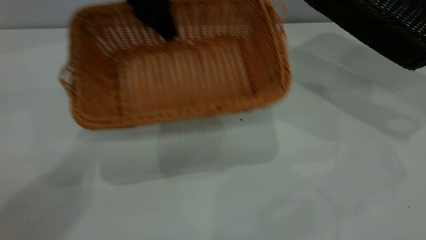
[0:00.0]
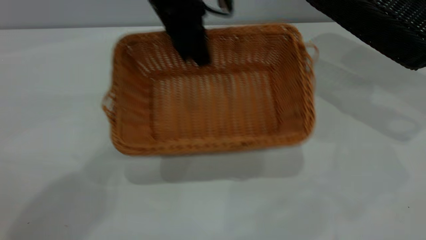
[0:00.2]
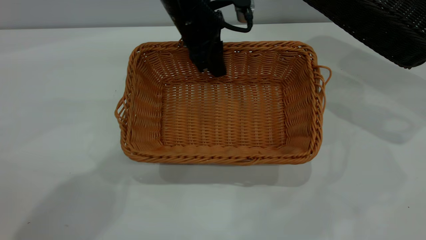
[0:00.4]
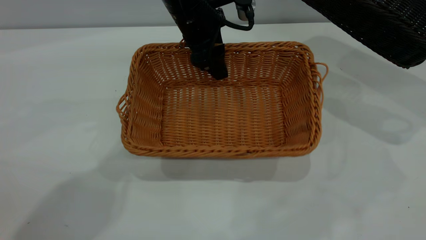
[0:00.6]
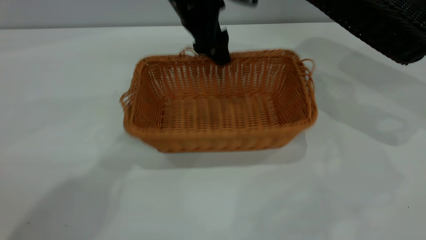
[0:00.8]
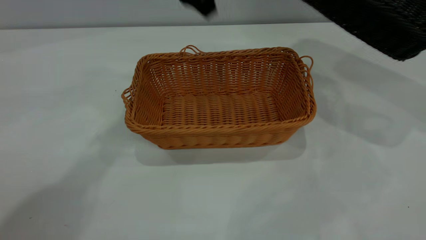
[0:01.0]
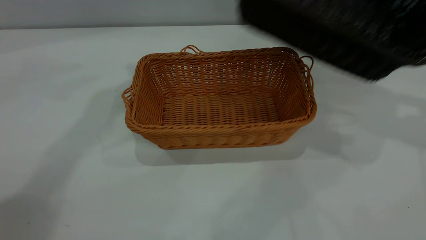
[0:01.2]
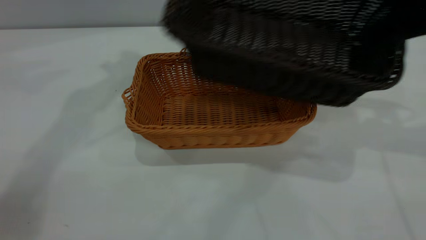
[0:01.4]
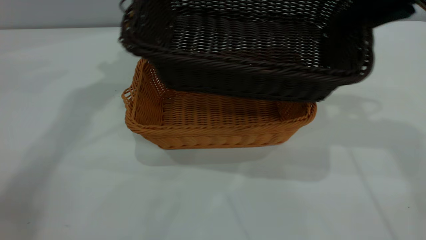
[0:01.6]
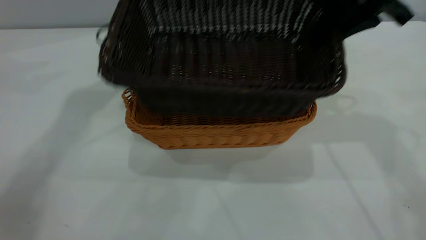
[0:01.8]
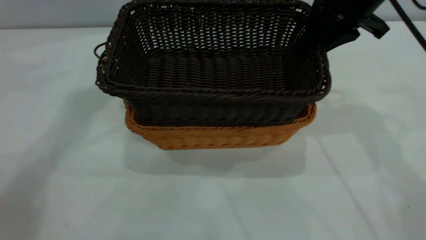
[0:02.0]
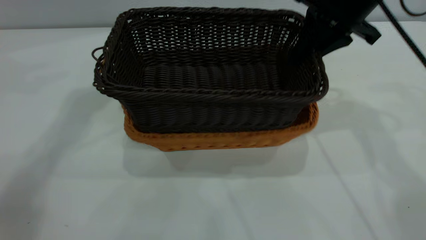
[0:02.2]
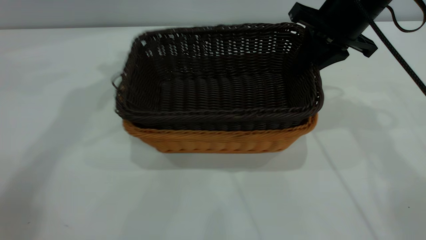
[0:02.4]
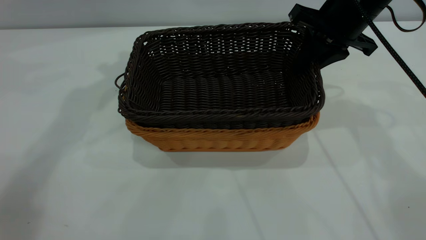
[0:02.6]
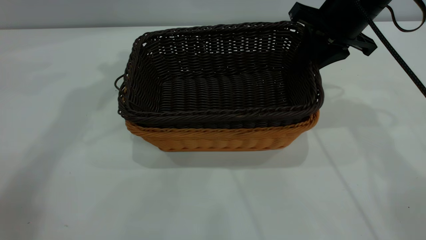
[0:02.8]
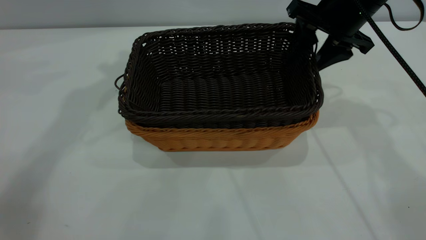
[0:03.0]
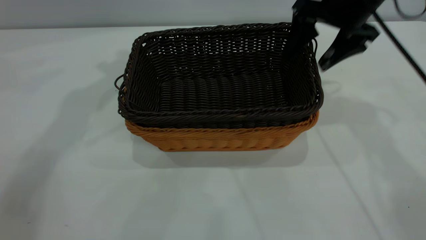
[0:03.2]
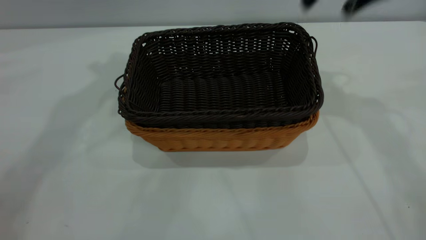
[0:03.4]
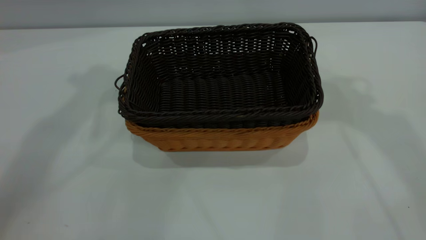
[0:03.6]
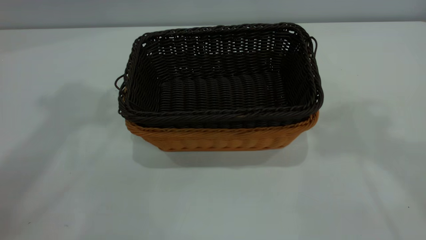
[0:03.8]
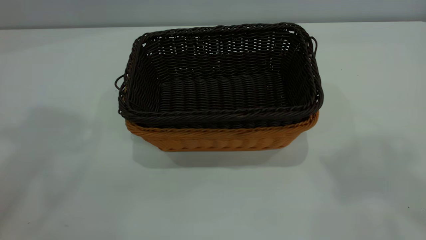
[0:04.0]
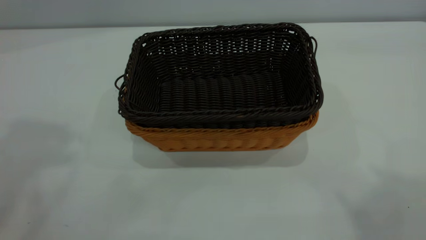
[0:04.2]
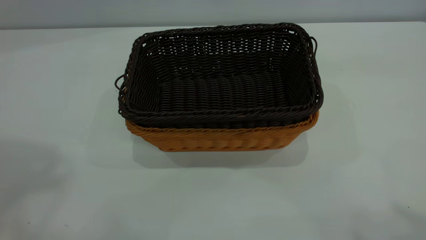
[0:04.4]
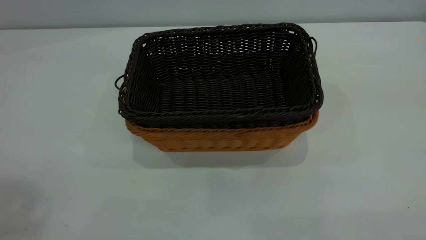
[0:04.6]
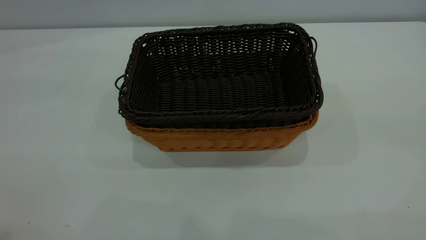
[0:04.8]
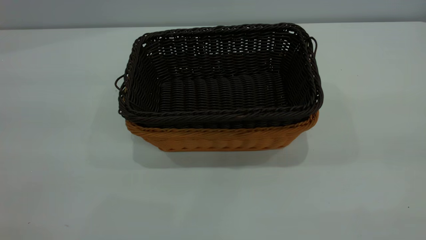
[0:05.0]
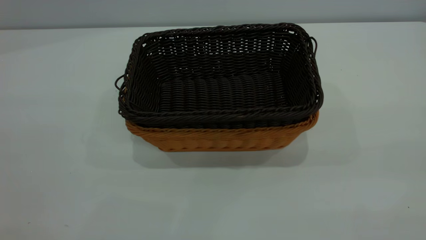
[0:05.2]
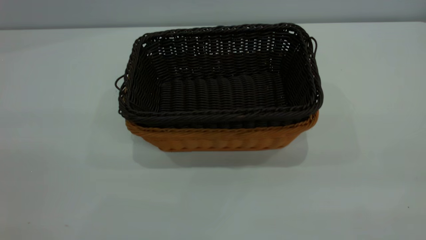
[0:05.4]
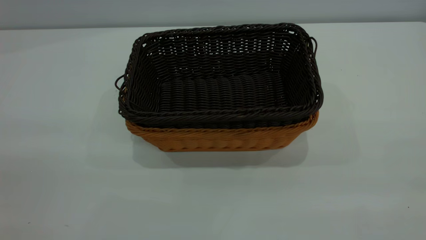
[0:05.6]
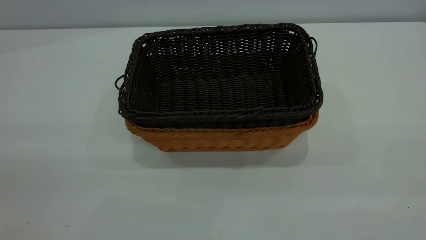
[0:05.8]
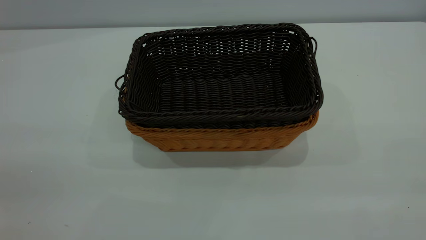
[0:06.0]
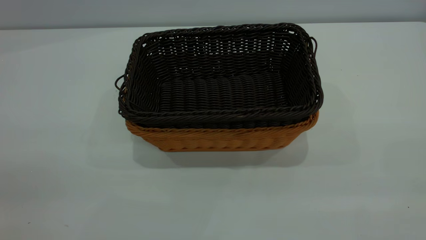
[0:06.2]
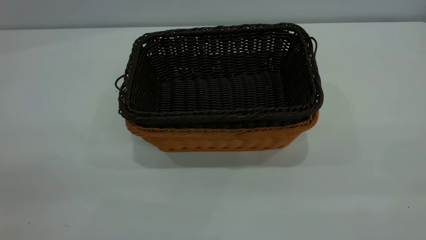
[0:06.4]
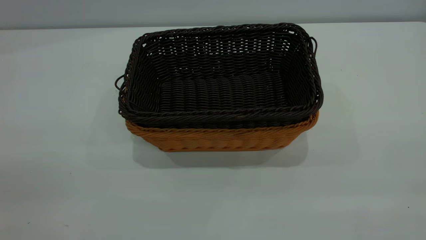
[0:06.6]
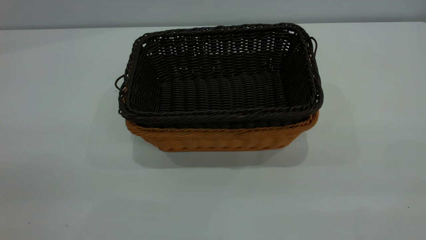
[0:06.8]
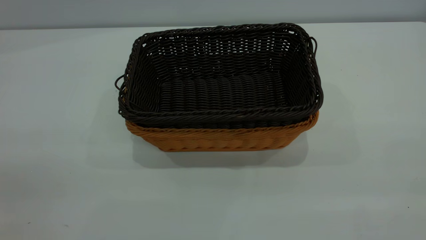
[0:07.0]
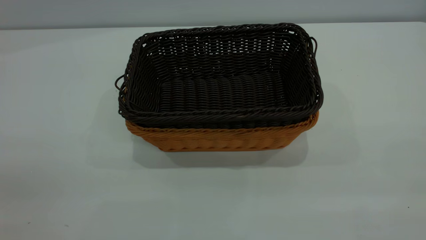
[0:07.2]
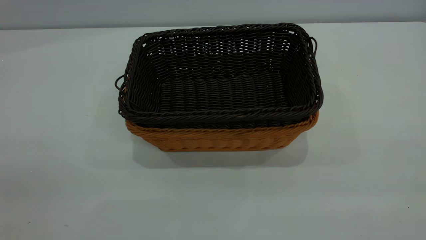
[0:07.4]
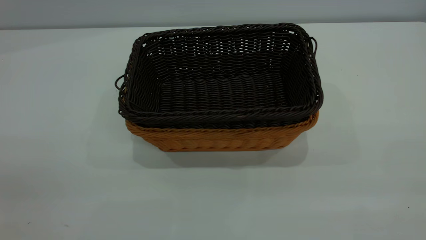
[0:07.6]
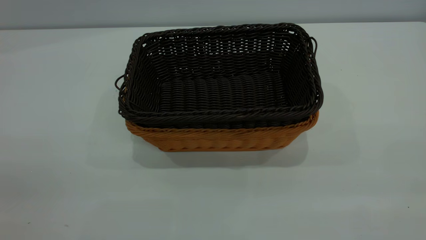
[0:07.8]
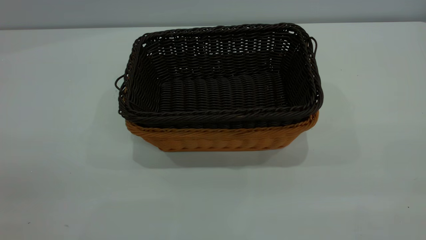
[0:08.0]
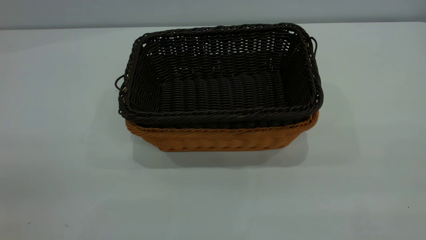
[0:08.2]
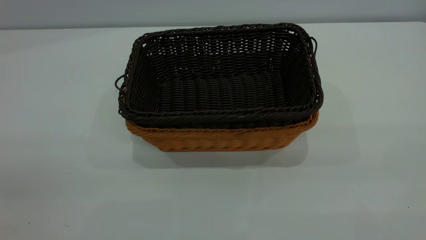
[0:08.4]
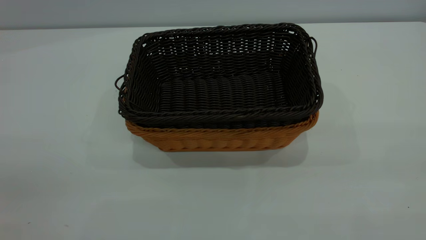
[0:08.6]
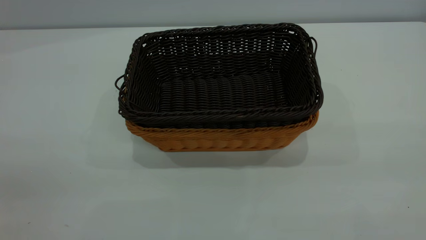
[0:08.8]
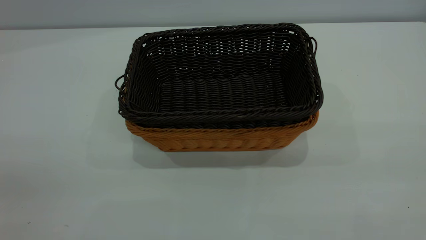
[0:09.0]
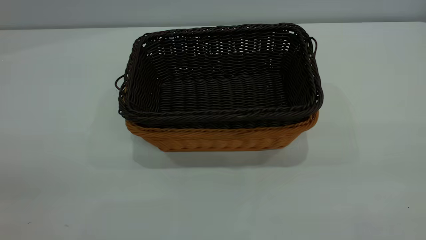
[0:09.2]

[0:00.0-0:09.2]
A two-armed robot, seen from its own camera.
Task of the whole recording: the left gripper grasp the brown basket and place it in the center of the table, the right gripper grasp the black basket and place it inside the brown one.
Step, 0:00.0 to 0:00.8: Place the light-colored basket in the center.
Step, 0:01.2 to 0:03.0: Place the dark basket on top of the light basket.
0:00.0 to 0:01.6: The left gripper travels upward and to the left by some 15 cm, and opens, while the right gripper moves to the left, some 20 cm.
0:01.6 to 0:03.0: The right gripper is displaced downward by about 10 cm, and opens up.
0:03.0 to 0:04.6: The right gripper goes some 50 cm backward and upward.
